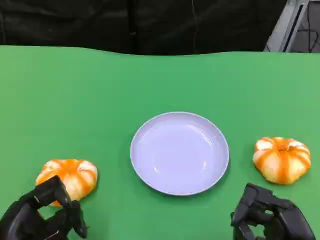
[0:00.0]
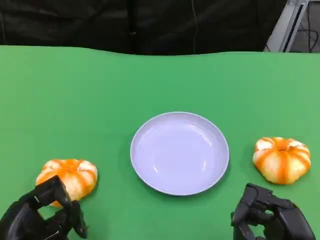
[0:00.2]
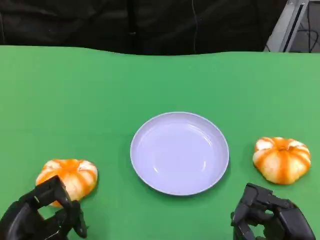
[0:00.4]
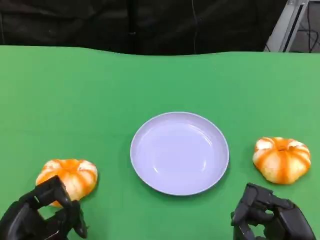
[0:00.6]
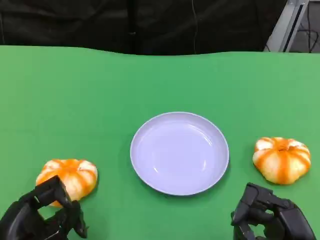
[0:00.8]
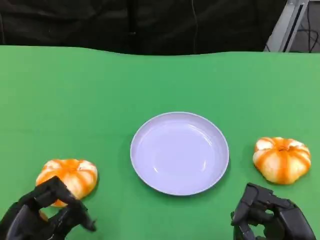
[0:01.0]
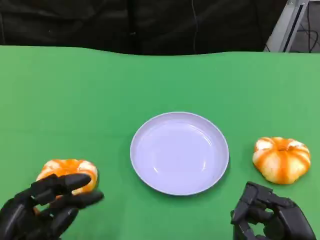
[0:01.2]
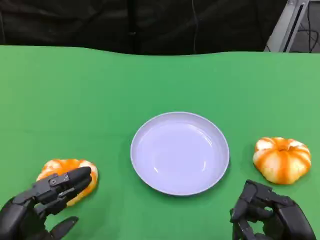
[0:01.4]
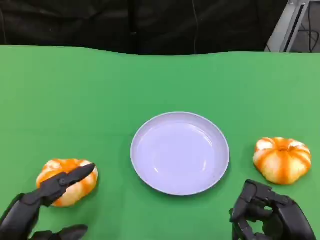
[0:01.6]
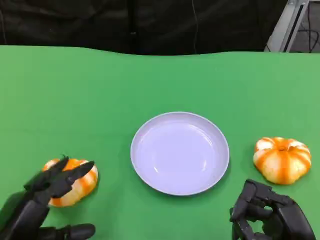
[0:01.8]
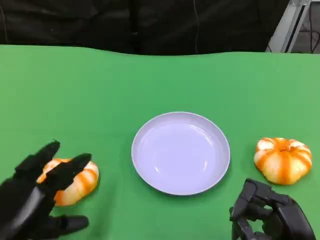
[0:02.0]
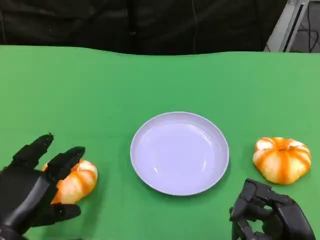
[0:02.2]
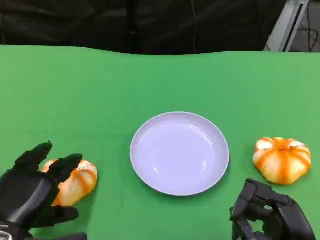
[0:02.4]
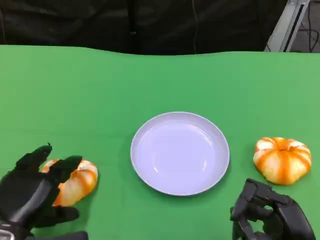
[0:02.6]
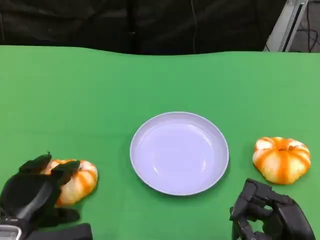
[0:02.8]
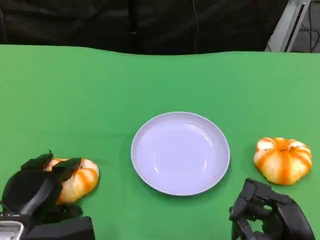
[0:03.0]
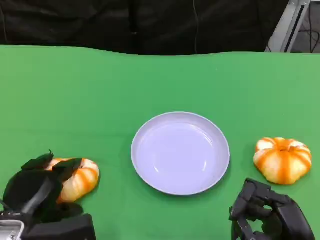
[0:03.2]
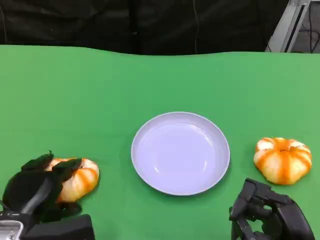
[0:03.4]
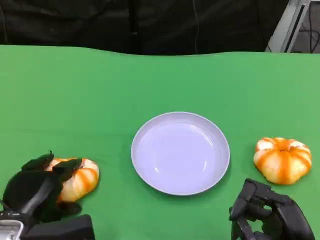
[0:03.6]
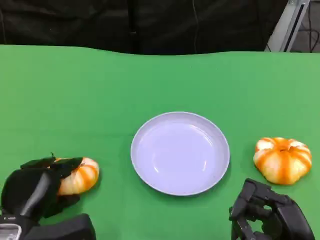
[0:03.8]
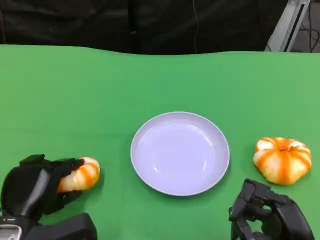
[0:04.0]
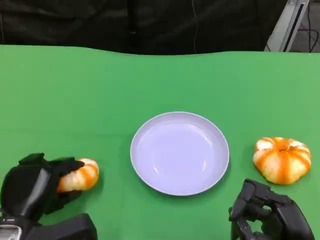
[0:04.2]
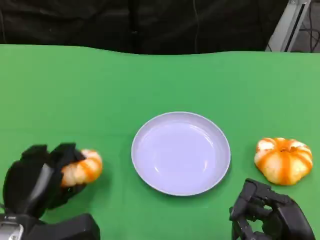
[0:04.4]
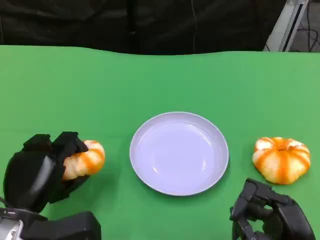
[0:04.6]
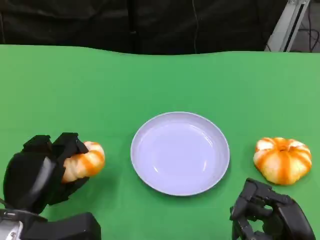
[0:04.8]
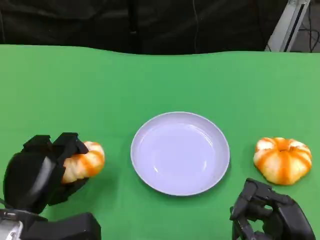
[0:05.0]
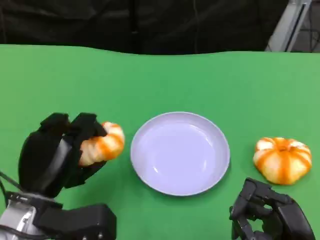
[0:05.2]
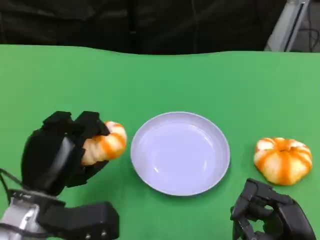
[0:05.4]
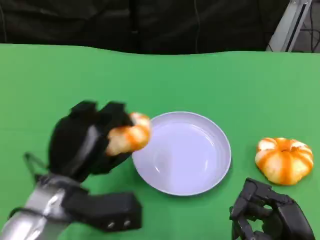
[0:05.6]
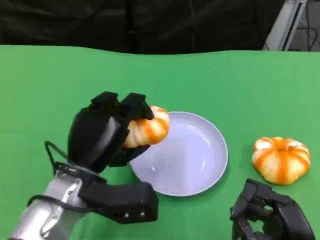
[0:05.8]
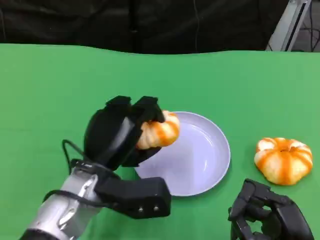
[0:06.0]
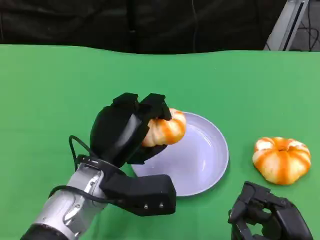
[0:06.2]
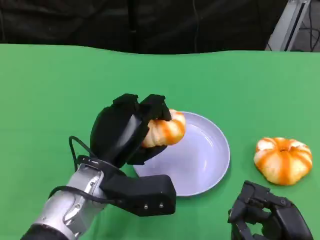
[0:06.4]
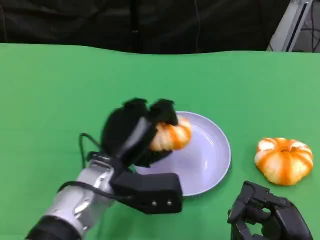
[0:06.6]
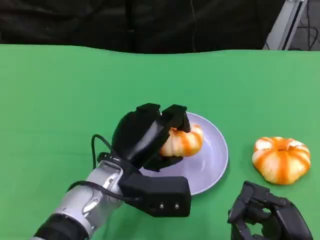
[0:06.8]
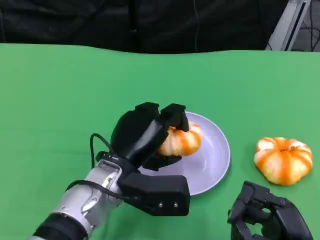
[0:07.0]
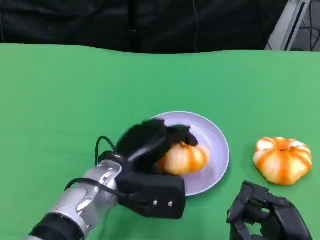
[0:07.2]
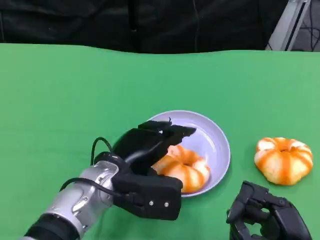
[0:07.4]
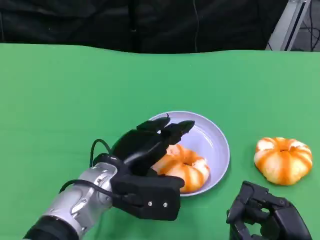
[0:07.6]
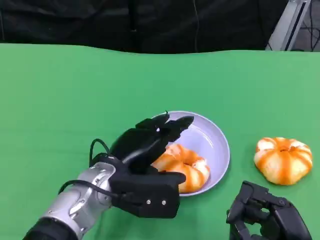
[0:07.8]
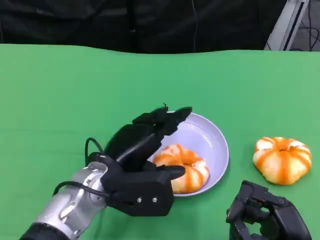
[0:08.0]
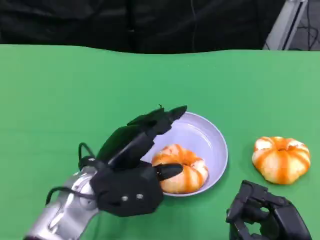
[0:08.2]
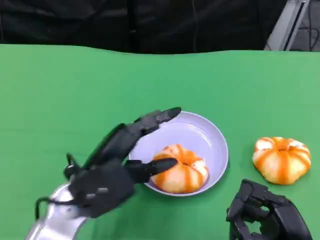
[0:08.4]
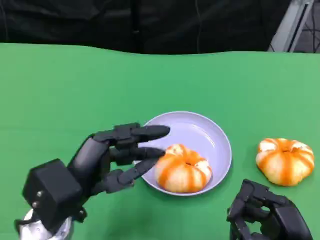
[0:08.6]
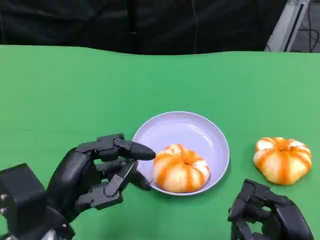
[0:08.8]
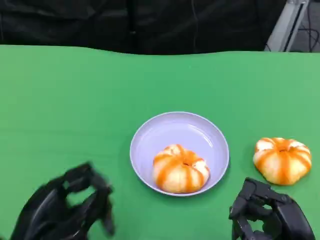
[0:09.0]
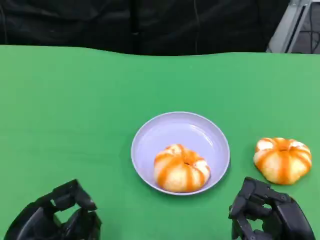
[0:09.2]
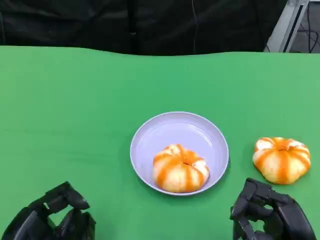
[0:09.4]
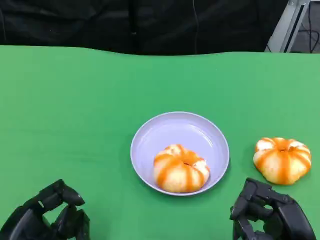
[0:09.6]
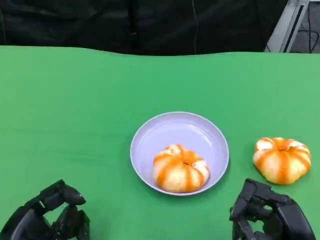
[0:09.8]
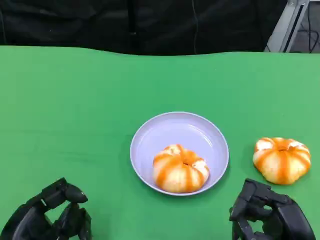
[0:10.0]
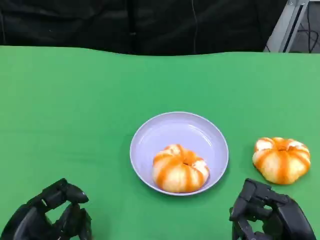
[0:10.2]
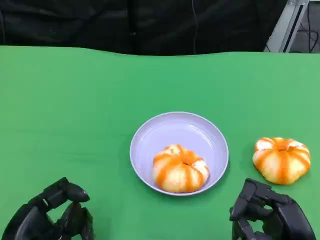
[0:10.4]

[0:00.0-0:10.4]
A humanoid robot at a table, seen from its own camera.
Task of the whole recording: Grasp the bread from the table and place it into the plate.
0:01.4 to 0:03.0: The left hand travels forward by roughly 5 cm.
0:04.4 to 0:06.0: The left hand moves to the right, forward and upward, about 15 cm.
0:07.4 to 0:09.0: The left hand goes about 20 cm to the left and backward.
0:09.0 to 0:10.4: The hands stay close to where they were, moving slightly.
